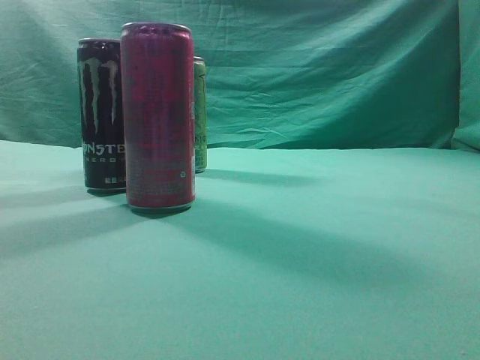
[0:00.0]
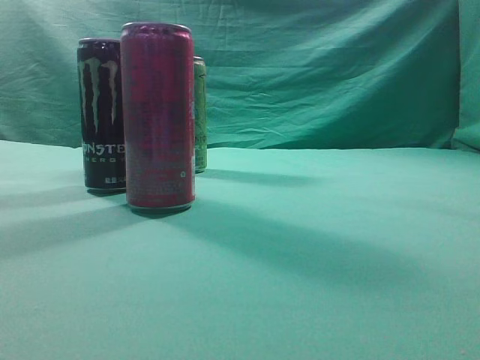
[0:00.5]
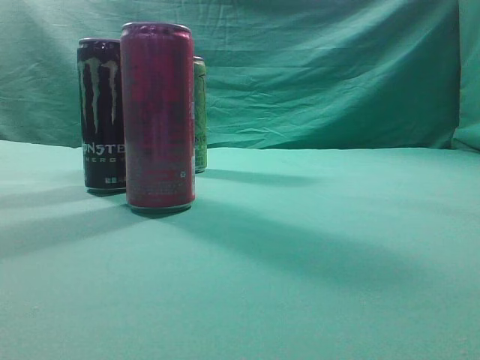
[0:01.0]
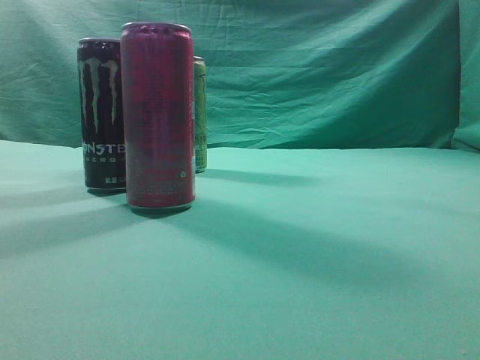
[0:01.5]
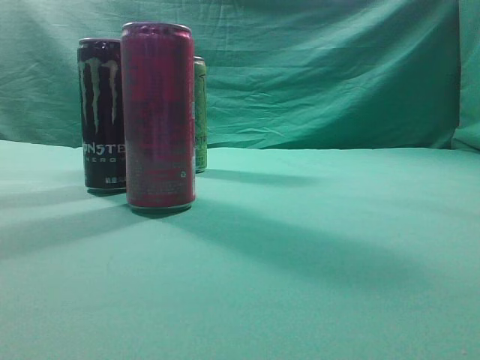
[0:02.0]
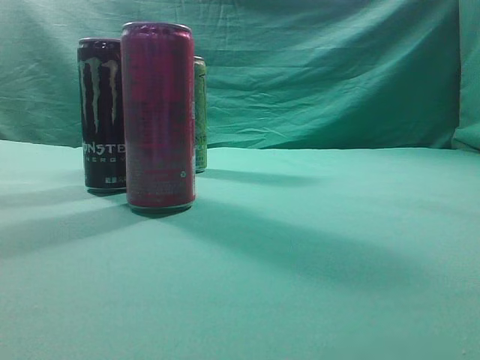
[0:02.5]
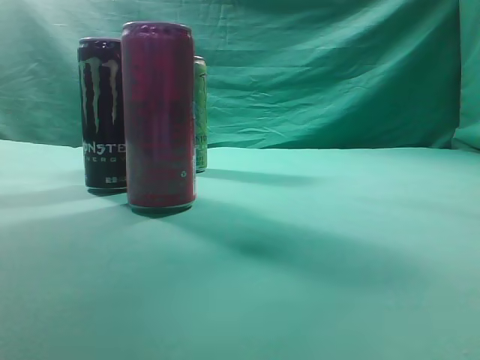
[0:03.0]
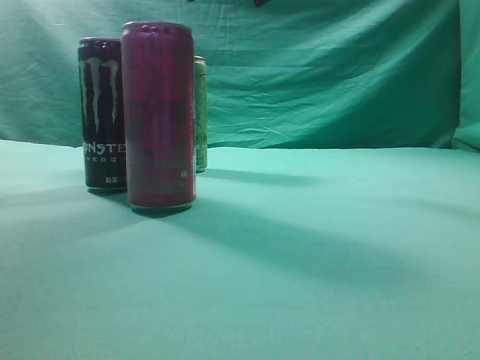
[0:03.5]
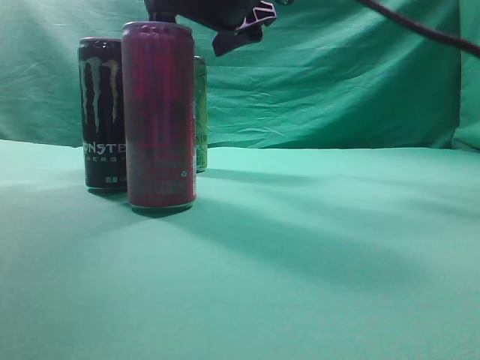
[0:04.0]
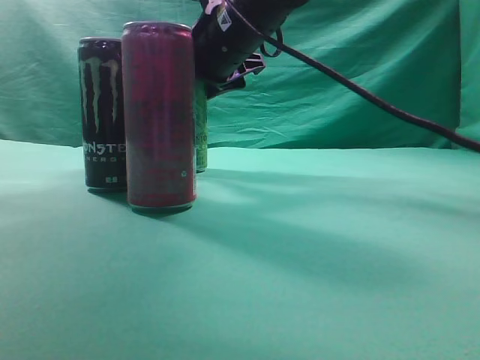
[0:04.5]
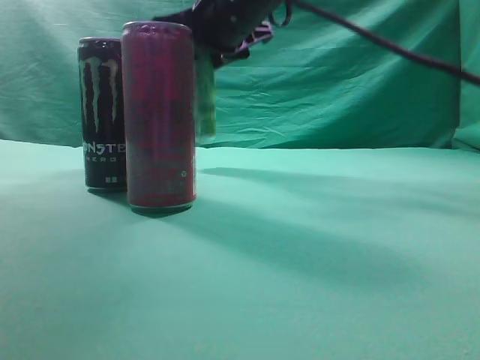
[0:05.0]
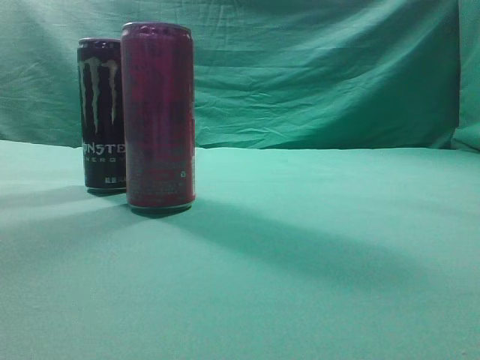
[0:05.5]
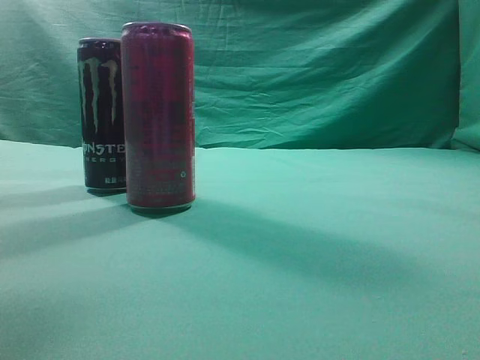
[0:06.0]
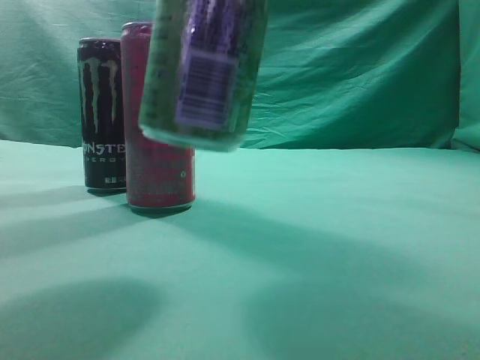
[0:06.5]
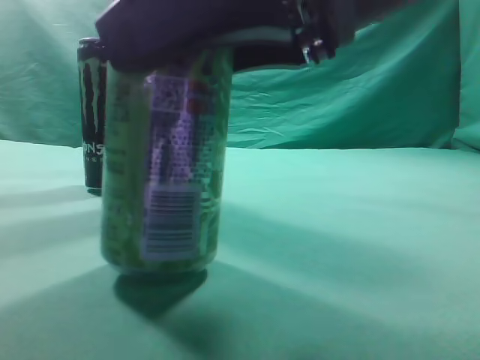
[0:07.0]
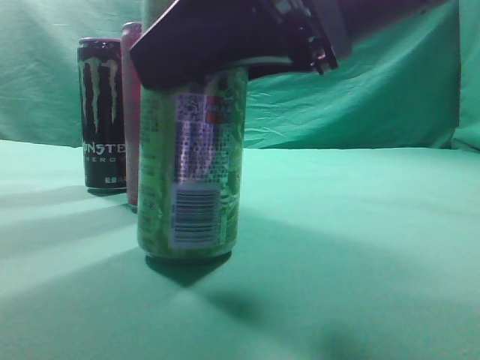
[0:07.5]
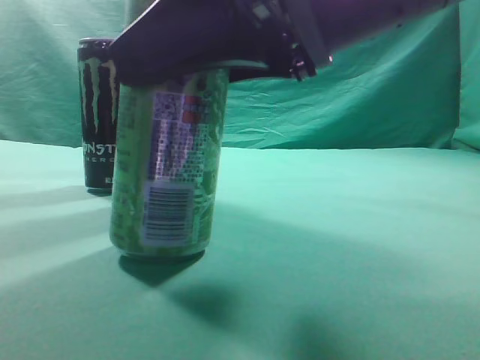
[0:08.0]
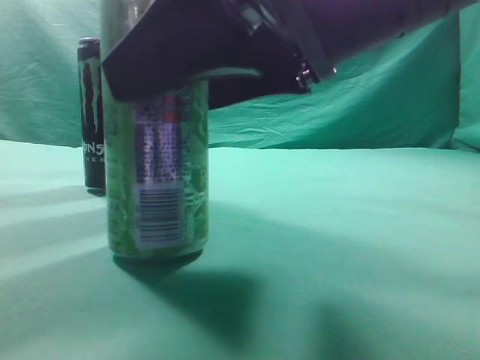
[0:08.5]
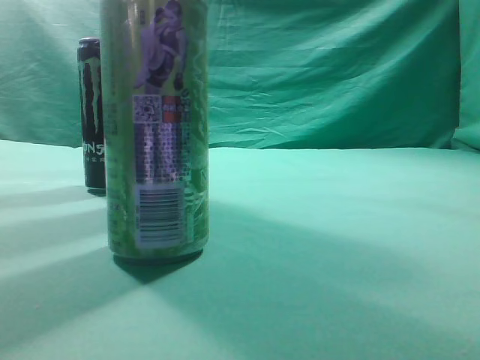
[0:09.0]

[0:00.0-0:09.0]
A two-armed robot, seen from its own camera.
Task of the whole recording: move one drink among three beverages.
Step, 0:00.0 to 0:05.0: Grasp the beverage bottle placed at the back of the desk.
Step, 0:05.5 to 0:08.5: Place the beverage bottle to the front of the table.
0:02.0 to 0:04.5: The right gripper moves forward and to the left, some 40 cm, and opens up.
0:04.5 to 0:07.0: The right gripper is displaced backward by some 25 cm.
0:07.0 to 0:09.0: The right gripper moves upward, about 5 cm.
